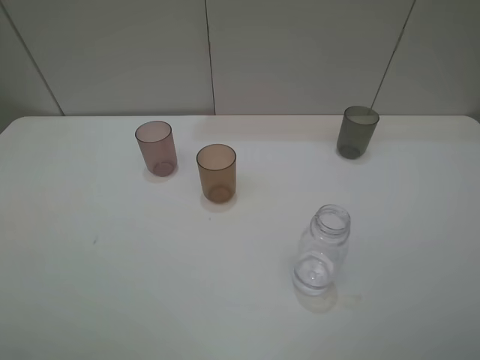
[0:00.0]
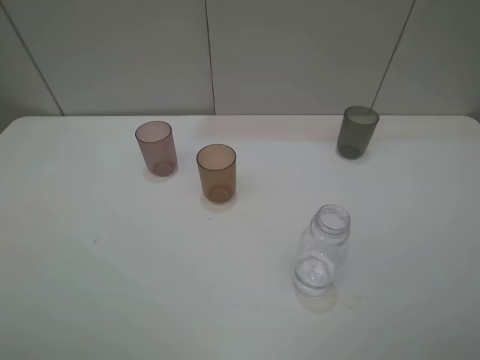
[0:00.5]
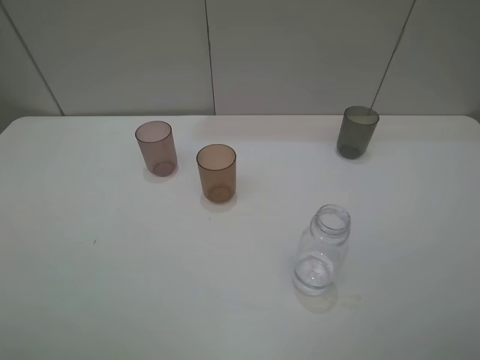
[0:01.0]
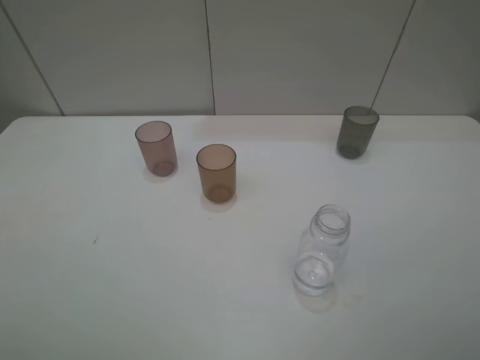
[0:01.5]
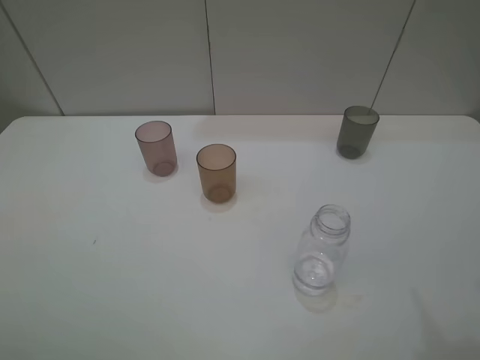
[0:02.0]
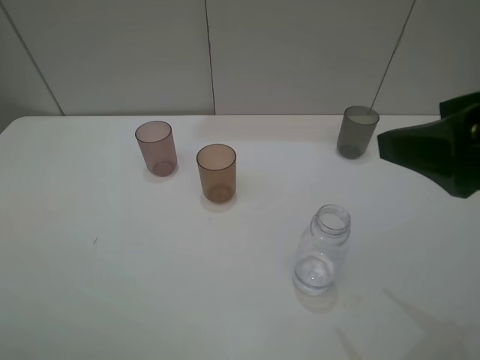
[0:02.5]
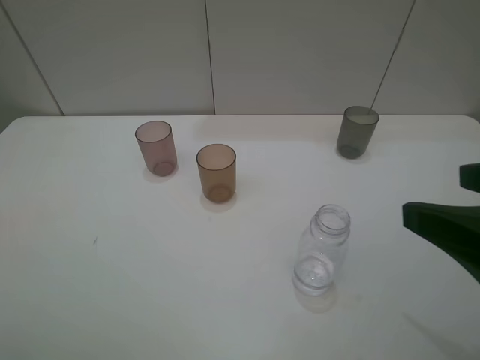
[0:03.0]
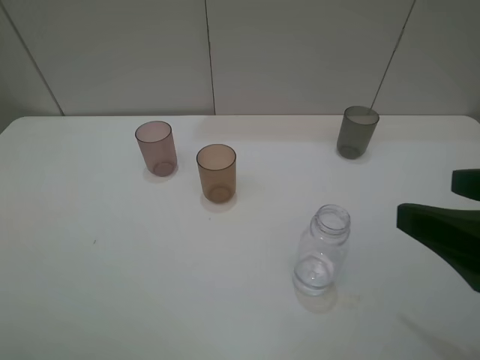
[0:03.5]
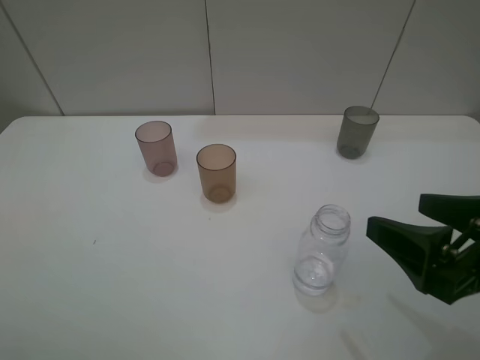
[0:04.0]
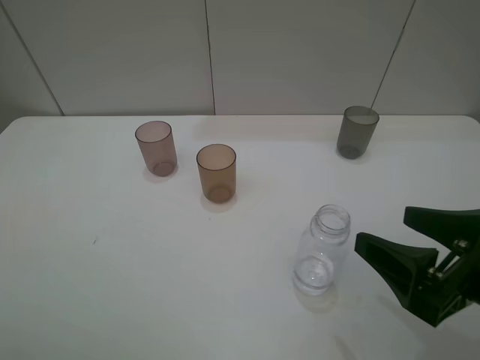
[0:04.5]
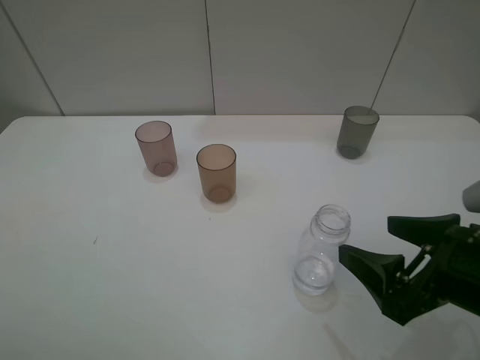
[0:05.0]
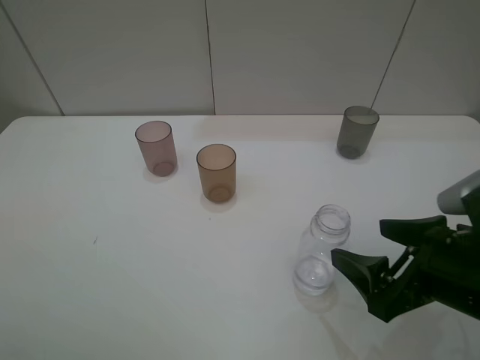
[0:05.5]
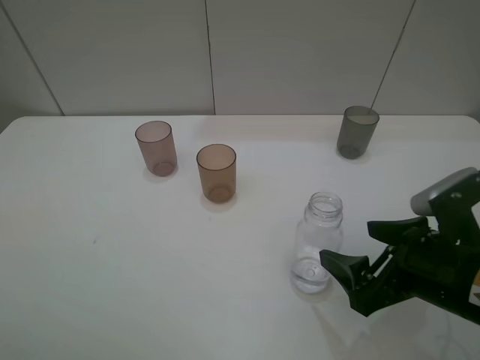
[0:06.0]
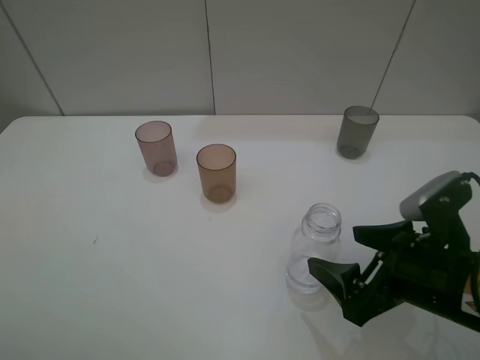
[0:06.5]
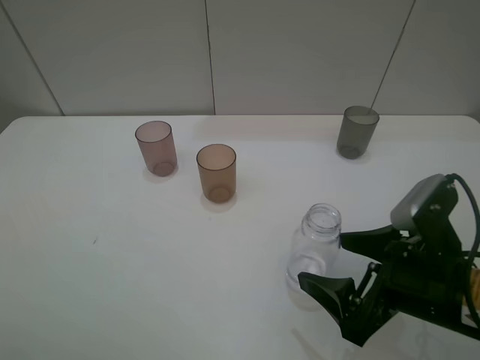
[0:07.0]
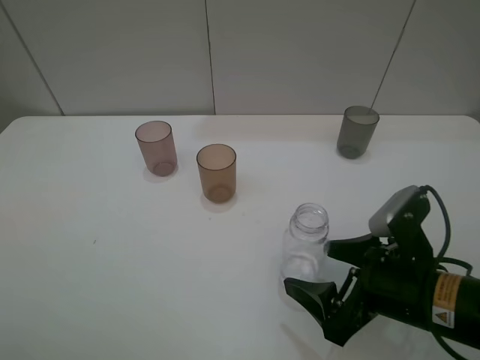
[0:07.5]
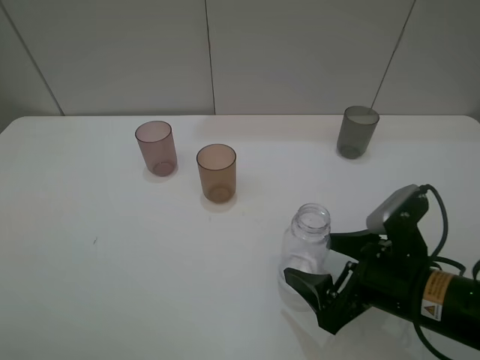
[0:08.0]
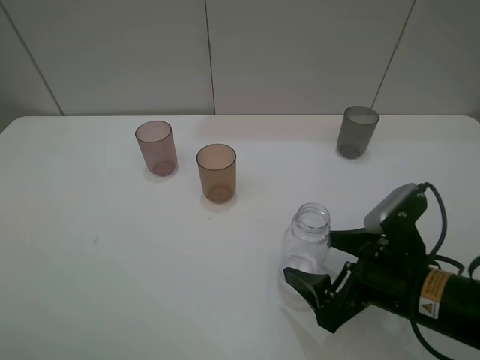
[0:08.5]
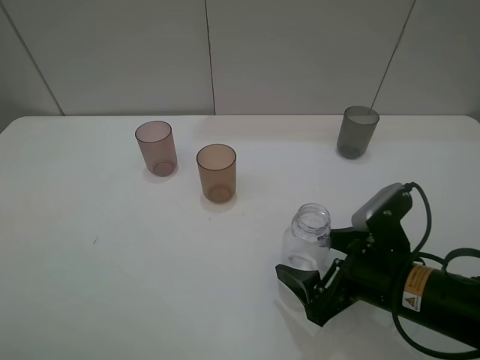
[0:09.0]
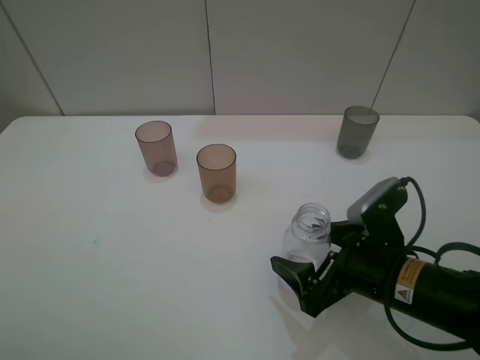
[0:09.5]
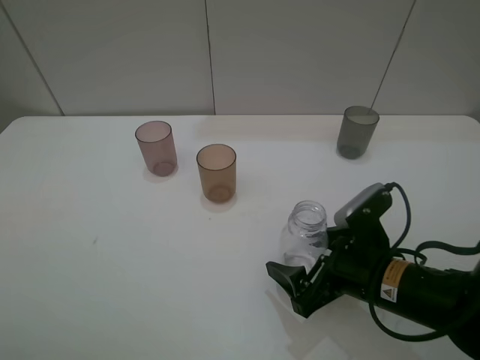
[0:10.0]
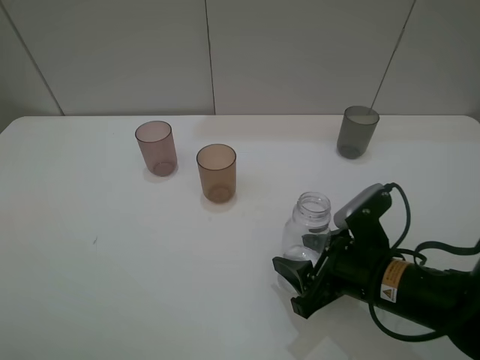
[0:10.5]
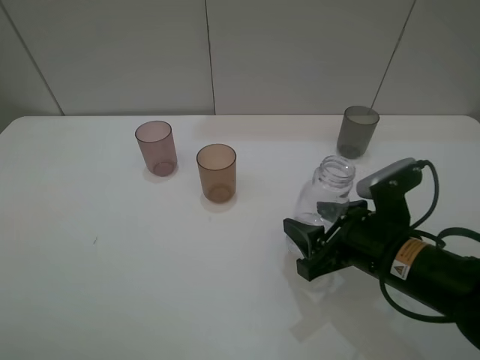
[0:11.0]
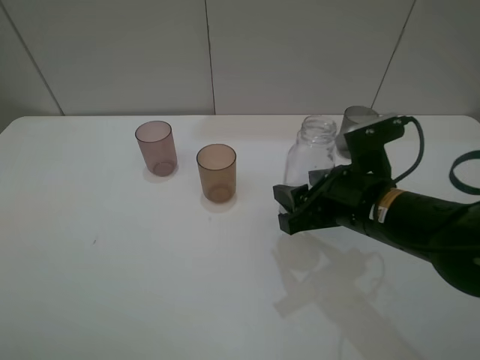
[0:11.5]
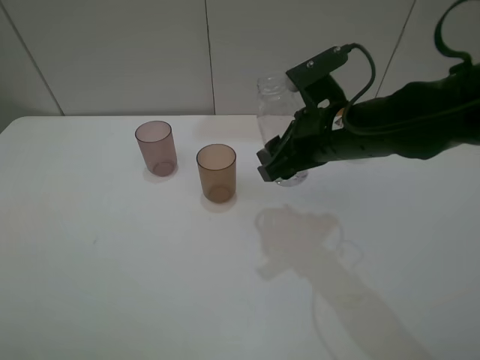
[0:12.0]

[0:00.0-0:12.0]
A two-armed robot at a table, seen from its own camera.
Task of the whole recording: pick up the bottle filled with water and pour water into the middle cup of the three cups.
0:02.0 to 0:04.0: The right gripper goes some 15 cm downward.
0:04.0 to 0:06.0: The right gripper heads downward, covering some 5 cm.
0:06.0 to 0:08.0: The grippers stay close to where they were, moving slightly.
0:08.0 to 0:10.0: There are only small adjustments of the grippers.
0:10.0 to 0:12.0: The right gripper heads forward and upward, covering about 15 cm, and closes its fingers.

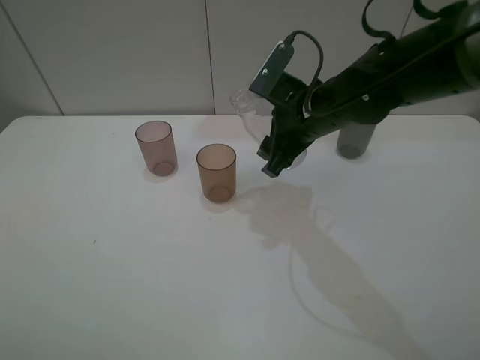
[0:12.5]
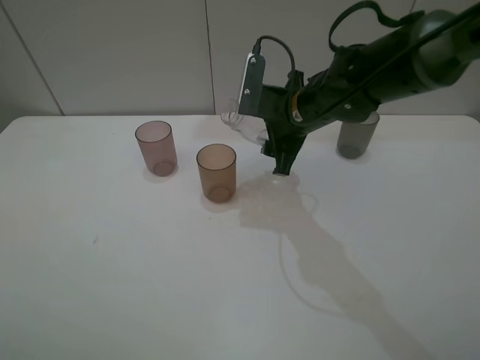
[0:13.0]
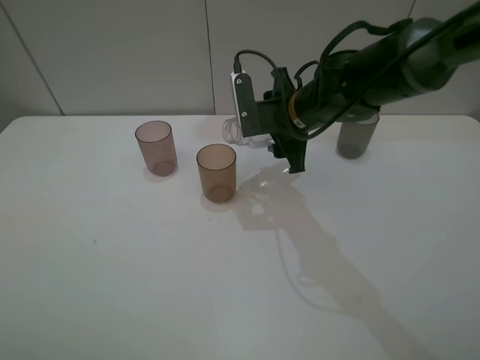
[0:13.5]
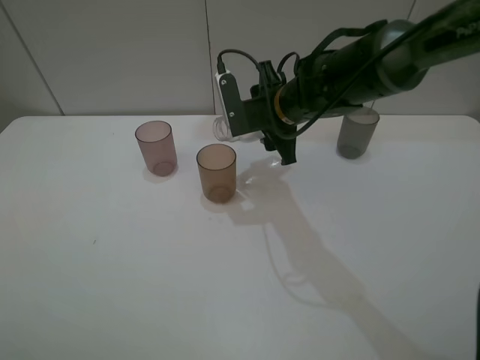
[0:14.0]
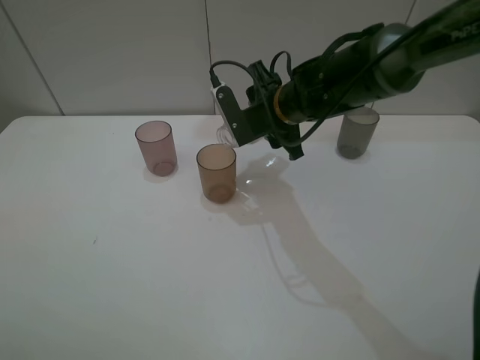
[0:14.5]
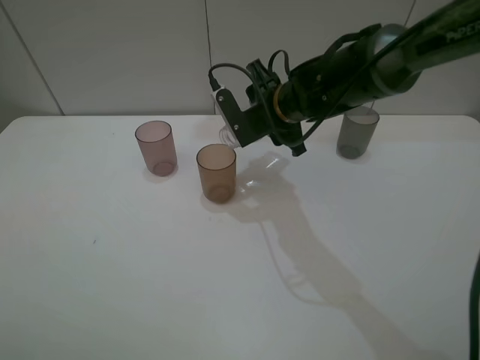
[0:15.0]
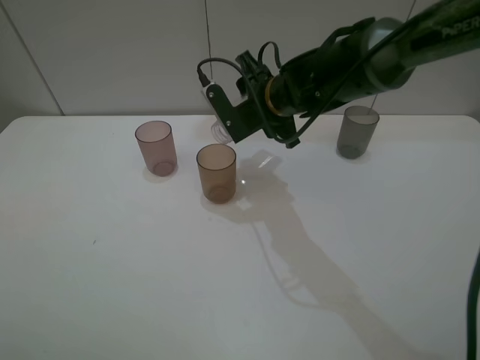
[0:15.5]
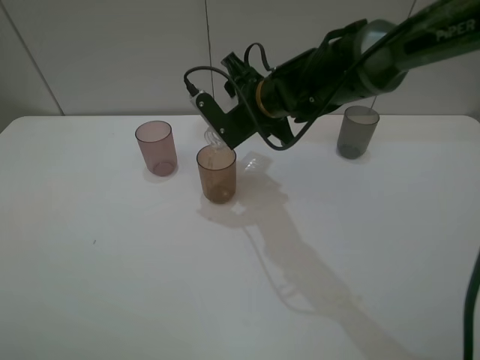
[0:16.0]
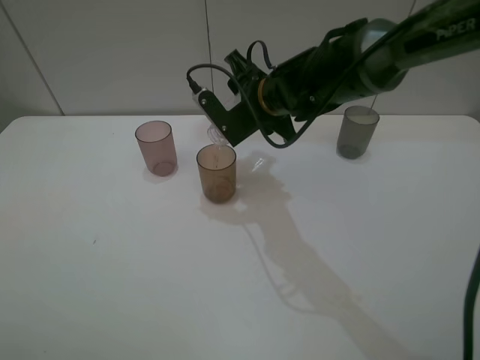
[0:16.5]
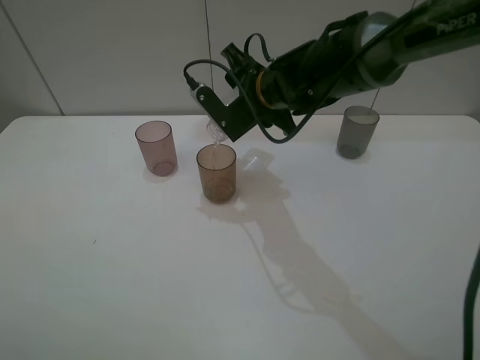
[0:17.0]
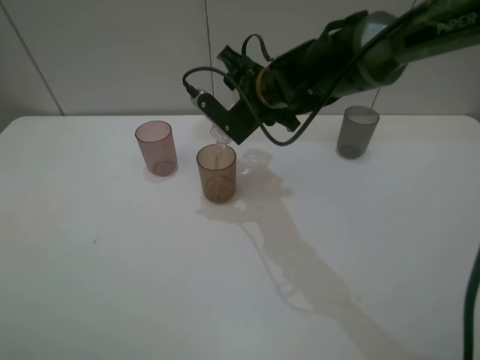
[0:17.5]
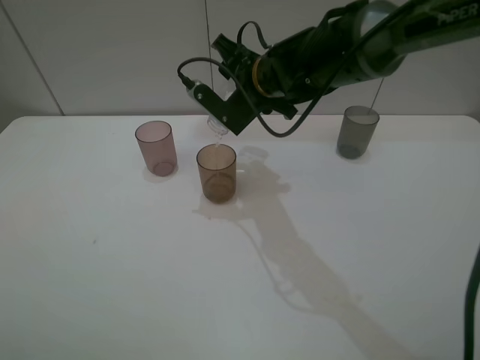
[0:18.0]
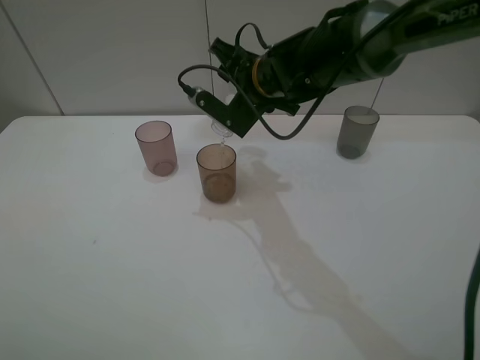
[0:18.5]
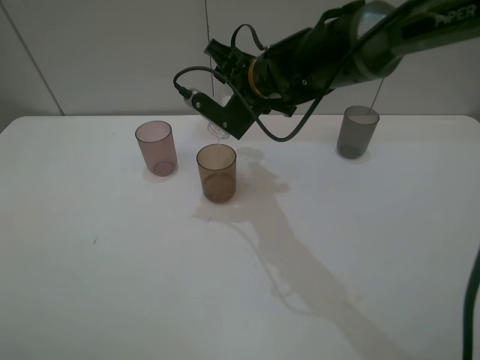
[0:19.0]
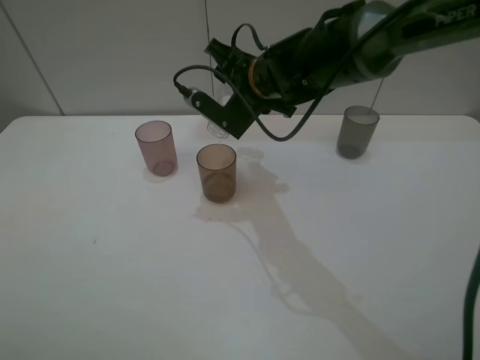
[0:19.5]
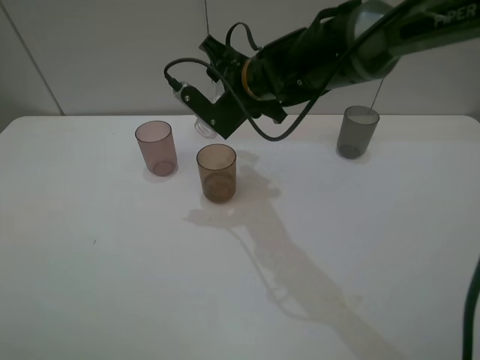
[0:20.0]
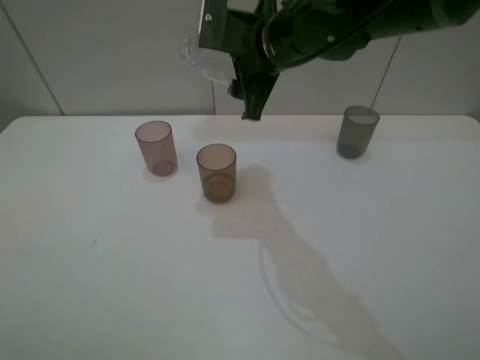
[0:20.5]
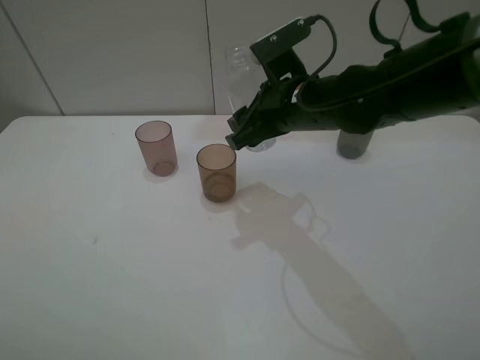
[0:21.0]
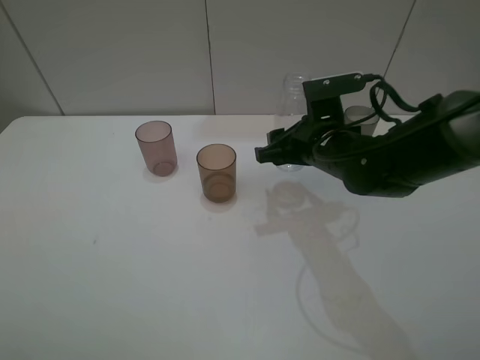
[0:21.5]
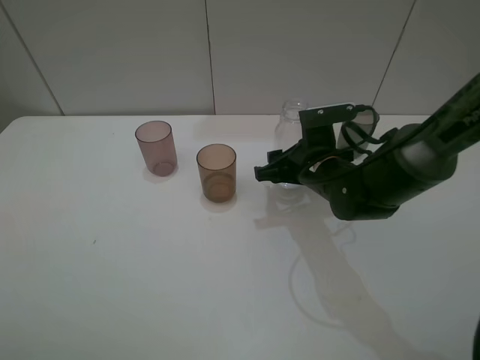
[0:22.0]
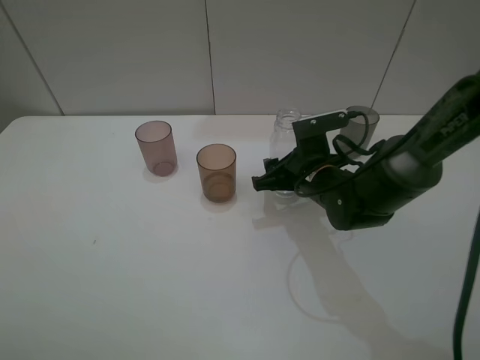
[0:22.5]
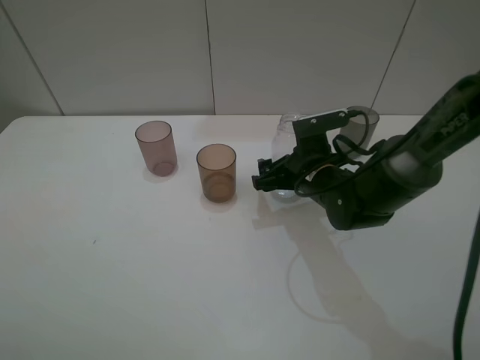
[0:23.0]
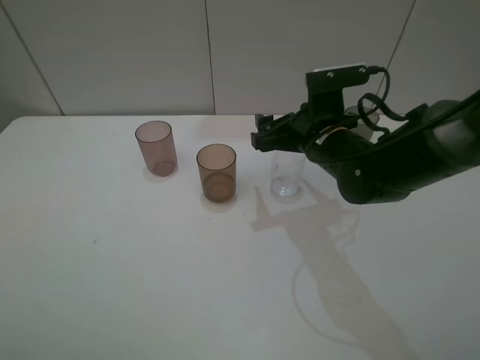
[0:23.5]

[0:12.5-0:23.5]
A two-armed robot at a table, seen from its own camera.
Task of the whole recording: pick up the bottle filled with water and pour water into the middle cup of the three cups.
Step, 0:12.5 to 0:14.5: Pour water from transparent bottle tobrown cup with the right gripper.
0:12.5 to 0:14.5: The right gripper changes place by about 5 cm.
0:14.5 to 0:16.0: The grippers stay close to where they were, moving slightly.
0:16.0 to 0:20.0: The grippers make only small movements.
0:20.0 to 0:21.5: The right gripper is displaced to the right, backward and downward by roughly 15 cm.
0:21.5 to 0:23.5: The right gripper moves approximately 5 cm downward and comes back, and opens its fingers.

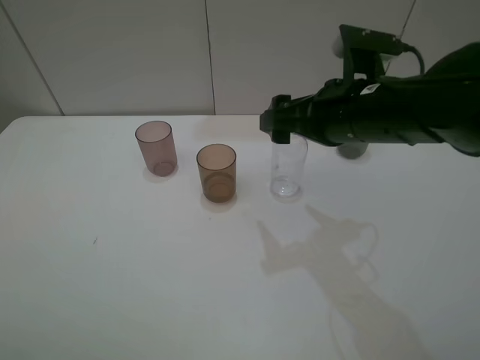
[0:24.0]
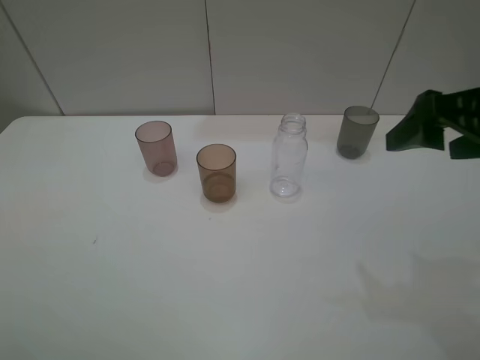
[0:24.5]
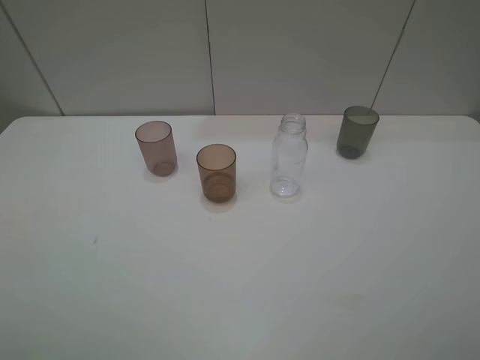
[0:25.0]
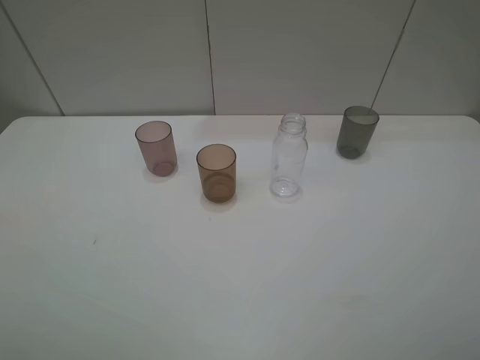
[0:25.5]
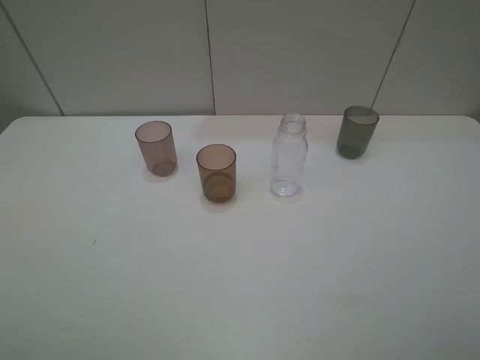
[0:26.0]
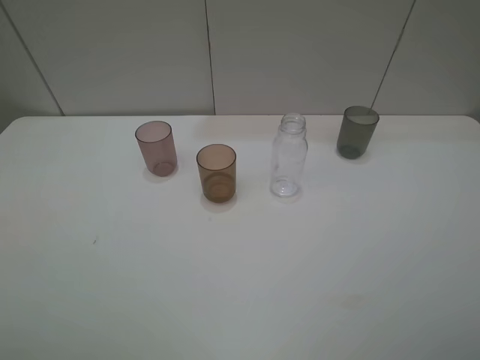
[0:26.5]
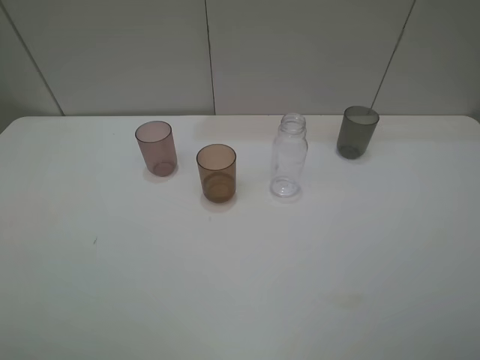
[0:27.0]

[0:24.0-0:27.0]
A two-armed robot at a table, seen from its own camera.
Task of the whole recording: pick up the bottle filled with water and pour water into the middle cup of the three cups.
0:24.0 to 0:25.5: The right gripper moves backward and to the right, some 30 cm.
